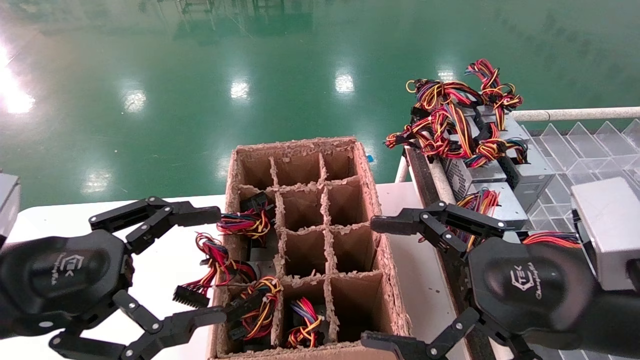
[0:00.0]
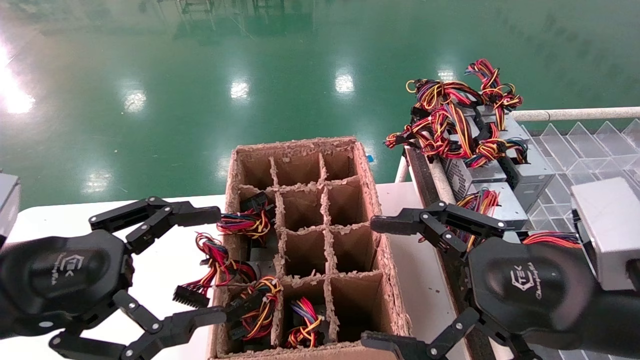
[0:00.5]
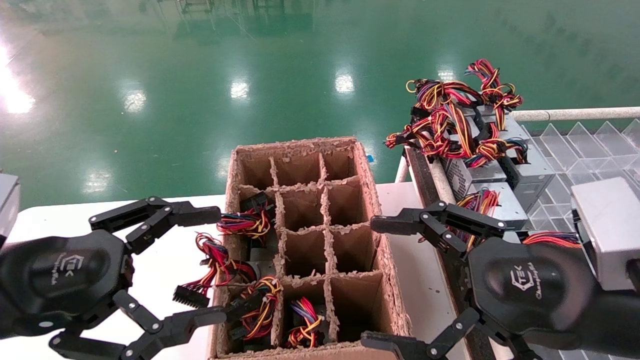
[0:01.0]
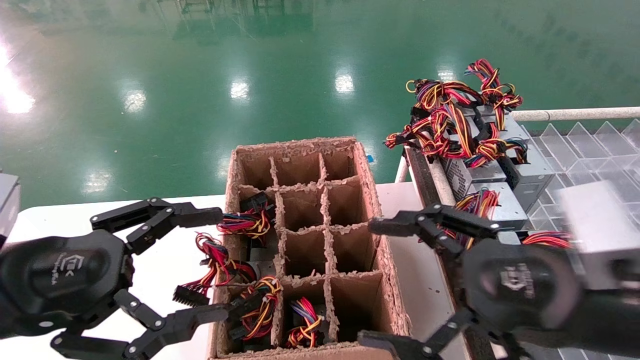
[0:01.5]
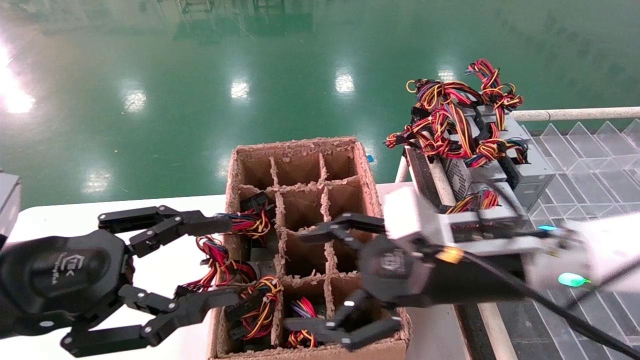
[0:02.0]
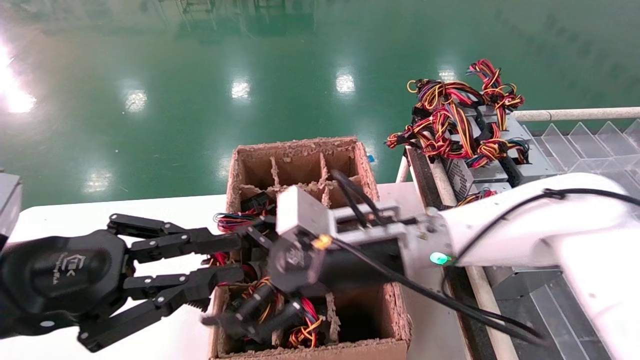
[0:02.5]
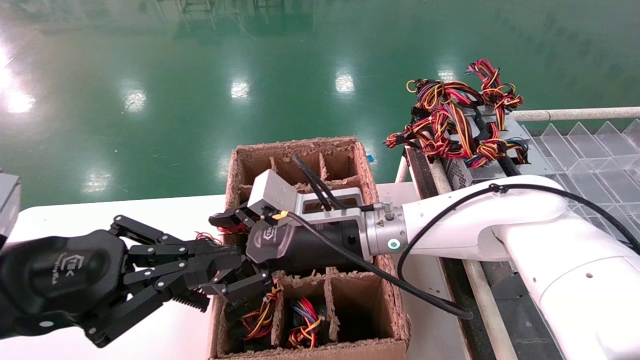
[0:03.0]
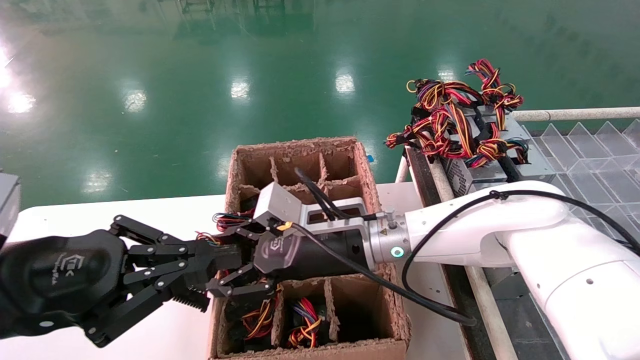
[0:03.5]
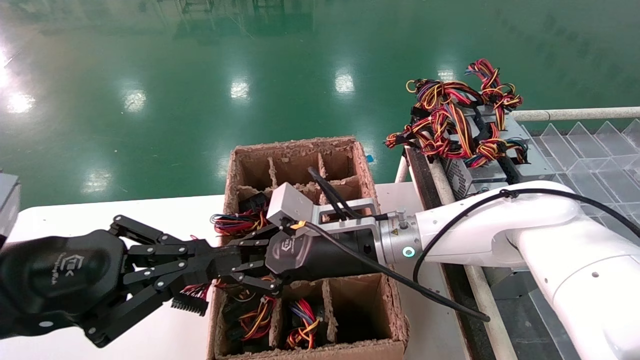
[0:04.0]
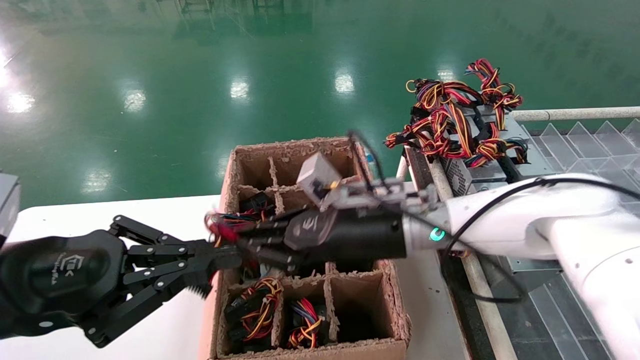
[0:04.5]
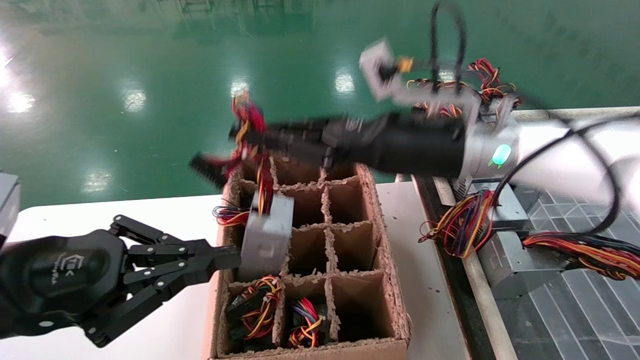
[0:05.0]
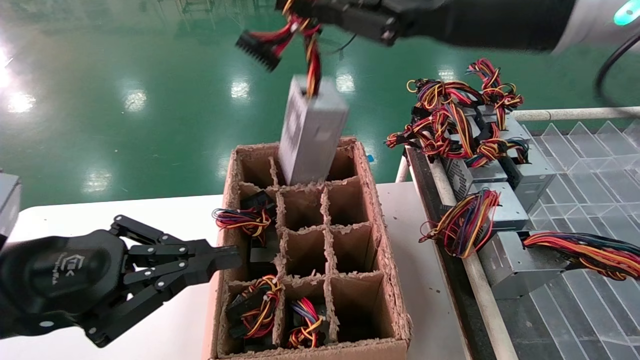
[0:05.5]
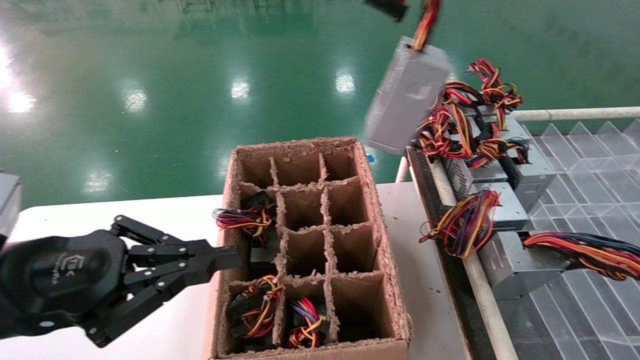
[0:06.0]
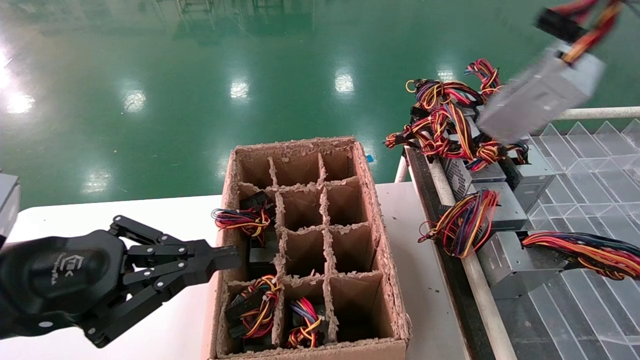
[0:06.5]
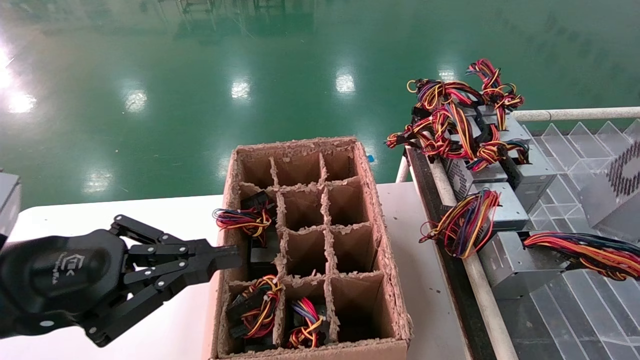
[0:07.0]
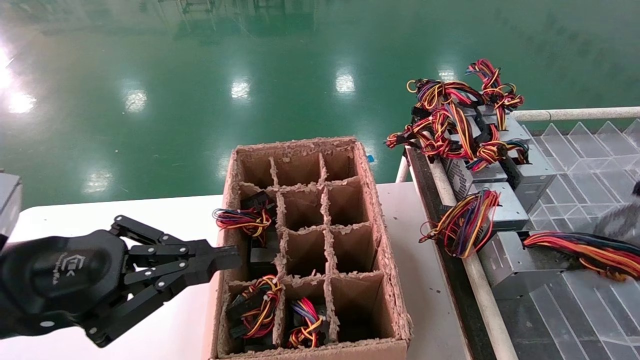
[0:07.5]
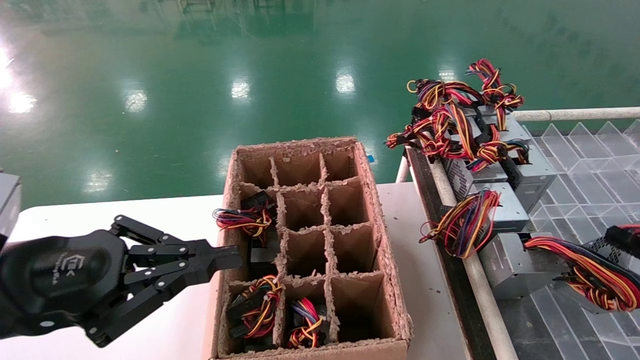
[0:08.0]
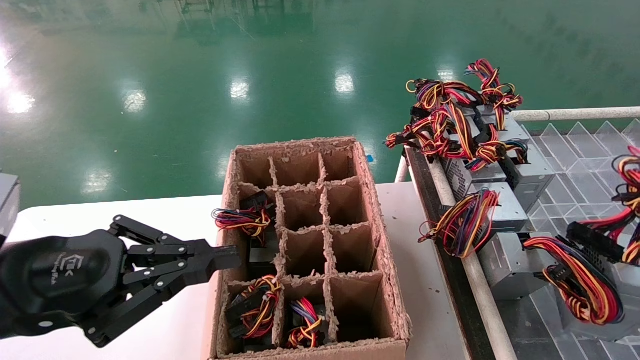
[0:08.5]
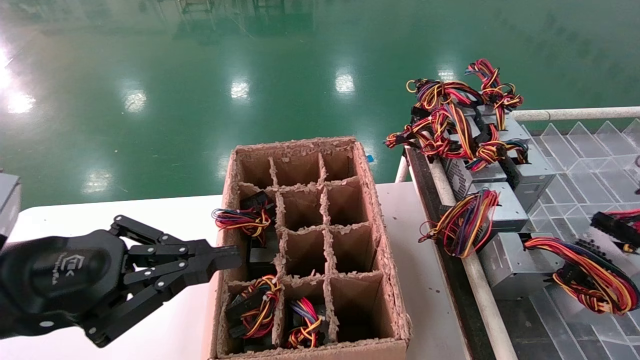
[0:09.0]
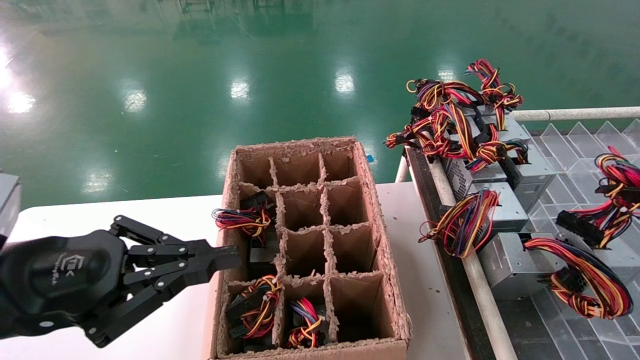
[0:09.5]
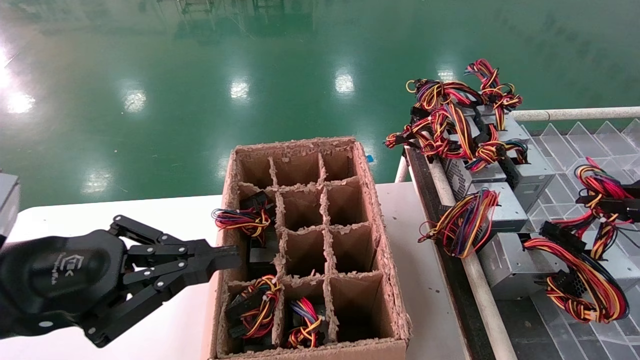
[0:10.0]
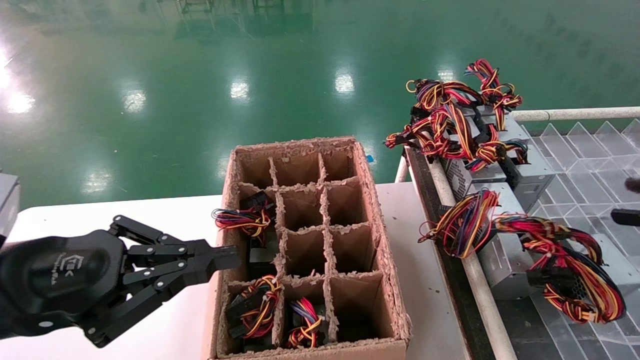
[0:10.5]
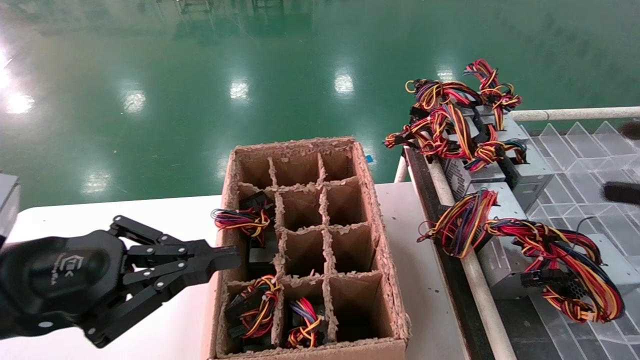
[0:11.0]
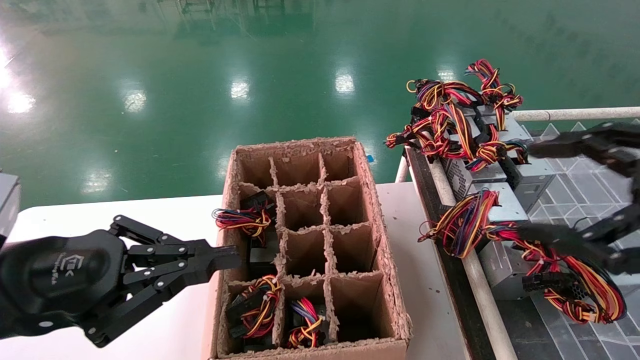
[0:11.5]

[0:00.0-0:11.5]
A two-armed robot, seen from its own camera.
Step, 0:02.0 to 0:04.0: Grab the main unit power supply from the containment box.
Step, 0:04.5 to 0:10.5: Place the main unit power supply in the designated area.
0:00.0 to 0:02.0: The right gripper is displaced forward and to the left by roughly 10 cm.
0:02.0 to 0:04.0: The left gripper closes, while the right gripper travels to the left and forward by approximately 15 cm, and closes.
0:04.0 to 0:06.0: The right gripper moves upward and to the right, about 40 cm.
0:06.0 to 0:07.5: The right gripper heads to the right, backward and downward, covering some 30 cm.
0:07.5 to 0:09.5: The right gripper shifts approximately 5 cm forward.
0:09.5 to 0:11.5: The right gripper heads to the left, covering some 10 cm, and opens up.

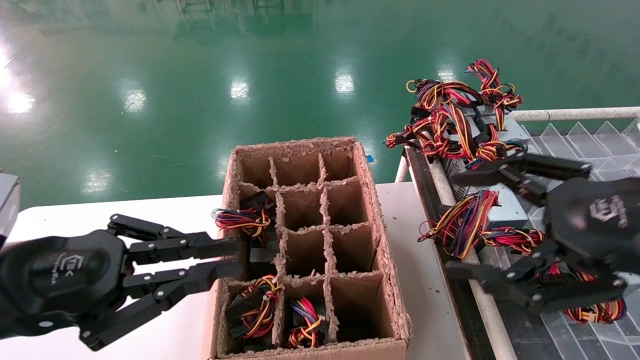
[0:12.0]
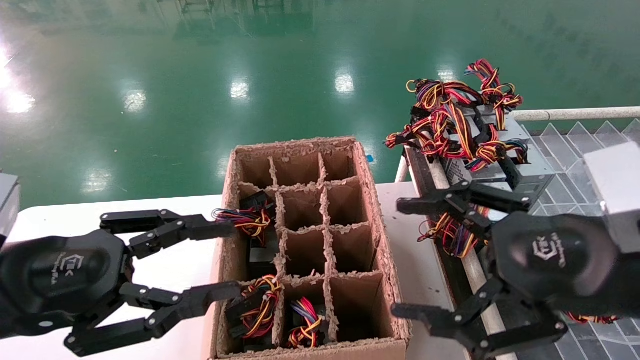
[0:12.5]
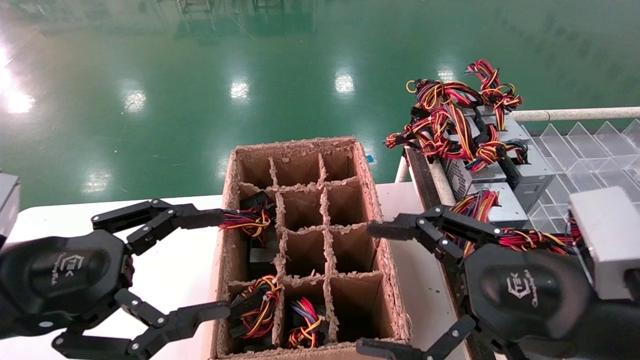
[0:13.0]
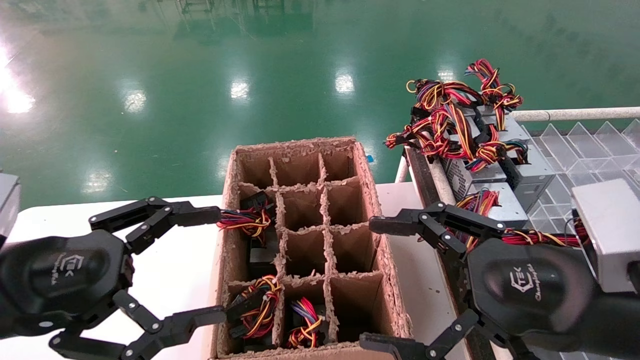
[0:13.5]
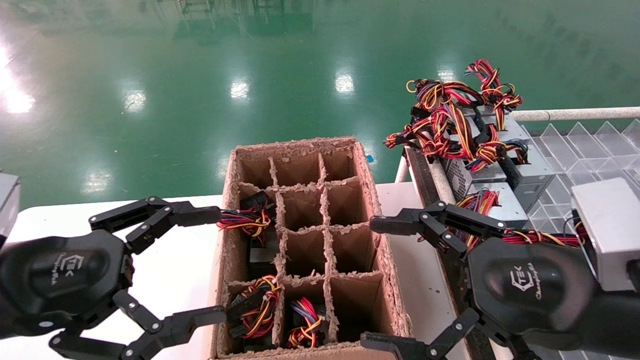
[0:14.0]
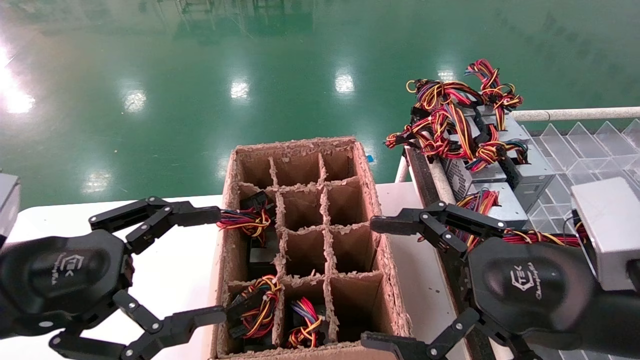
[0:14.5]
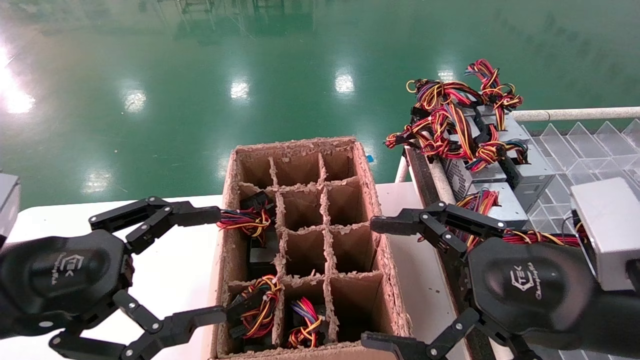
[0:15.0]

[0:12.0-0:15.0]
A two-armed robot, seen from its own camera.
0:12.0 to 0:13.5: The left gripper opens up; the right gripper moves downward and to the left, approximately 10 cm.
0:13.5 to 0:15.0: Both grippers stay about where they are.
